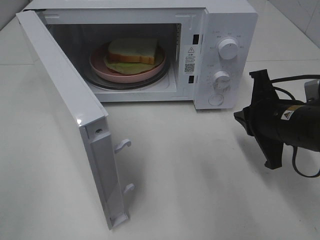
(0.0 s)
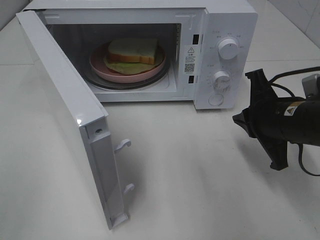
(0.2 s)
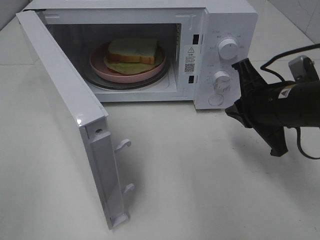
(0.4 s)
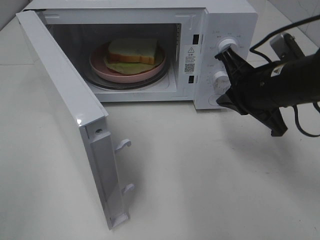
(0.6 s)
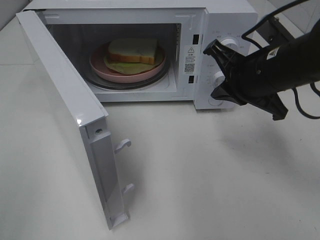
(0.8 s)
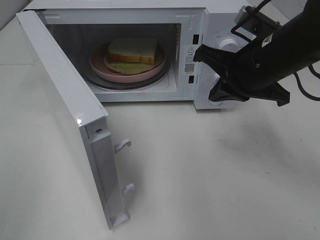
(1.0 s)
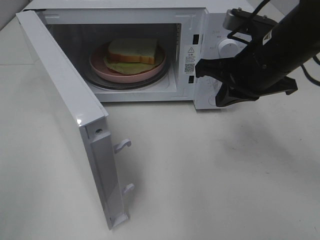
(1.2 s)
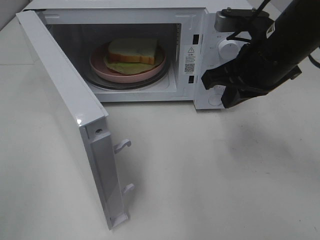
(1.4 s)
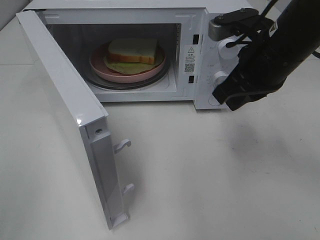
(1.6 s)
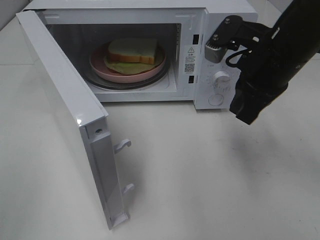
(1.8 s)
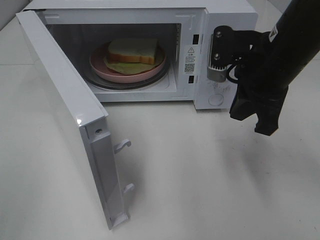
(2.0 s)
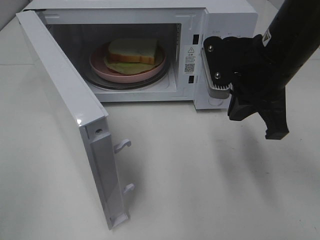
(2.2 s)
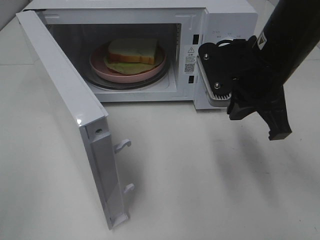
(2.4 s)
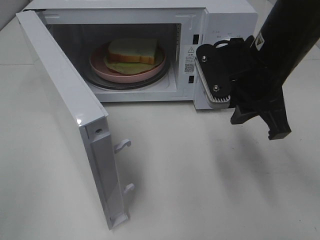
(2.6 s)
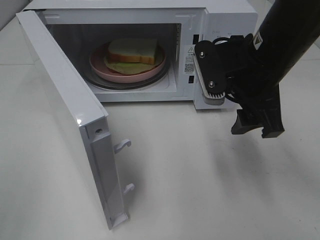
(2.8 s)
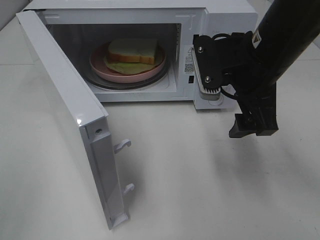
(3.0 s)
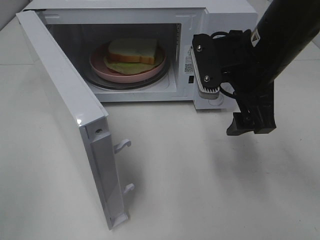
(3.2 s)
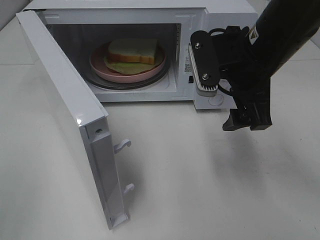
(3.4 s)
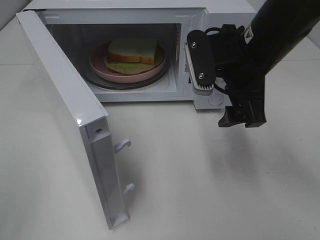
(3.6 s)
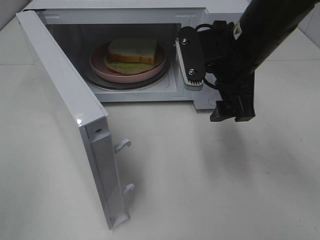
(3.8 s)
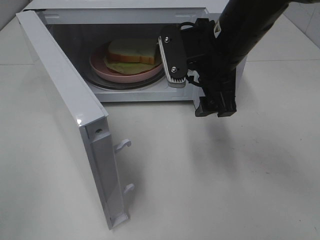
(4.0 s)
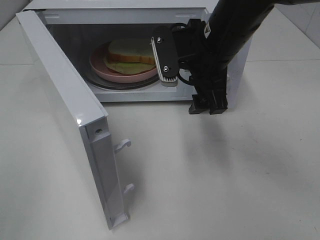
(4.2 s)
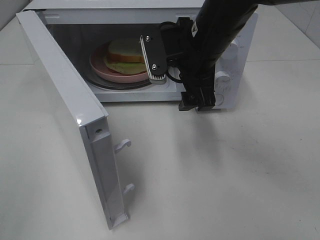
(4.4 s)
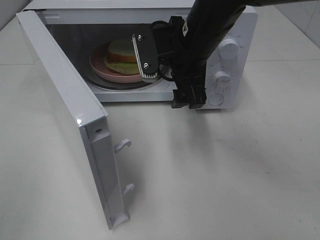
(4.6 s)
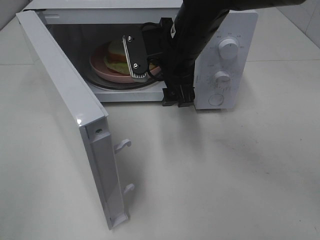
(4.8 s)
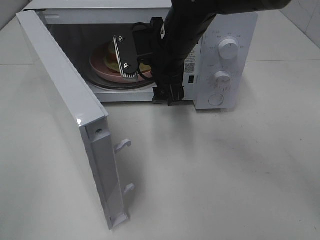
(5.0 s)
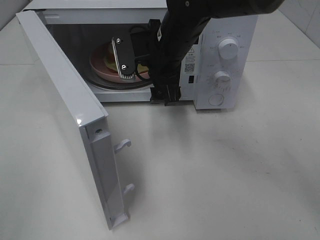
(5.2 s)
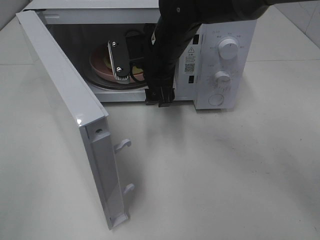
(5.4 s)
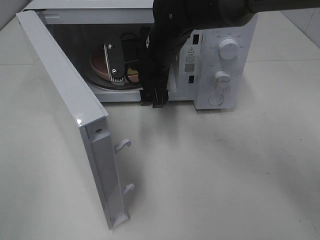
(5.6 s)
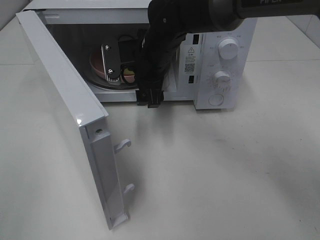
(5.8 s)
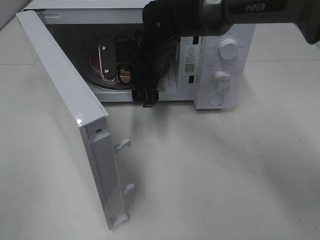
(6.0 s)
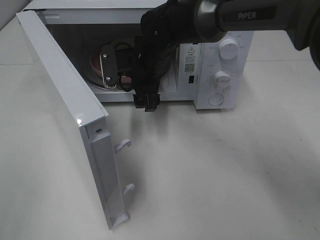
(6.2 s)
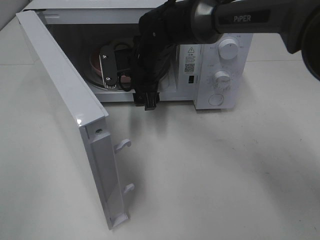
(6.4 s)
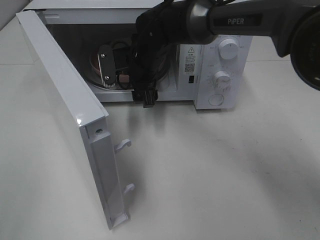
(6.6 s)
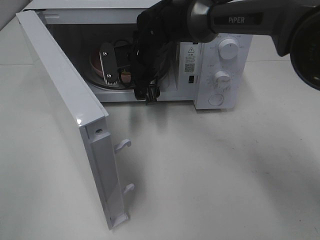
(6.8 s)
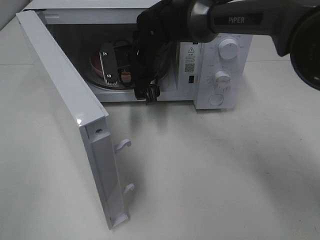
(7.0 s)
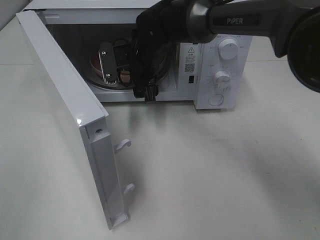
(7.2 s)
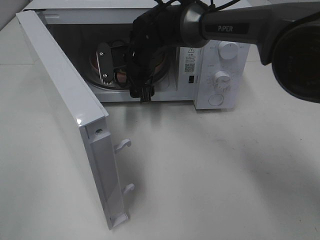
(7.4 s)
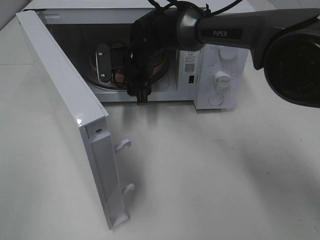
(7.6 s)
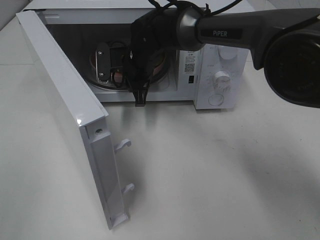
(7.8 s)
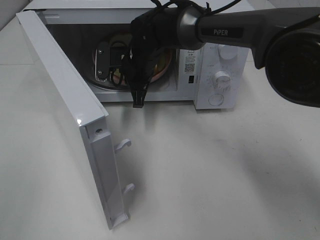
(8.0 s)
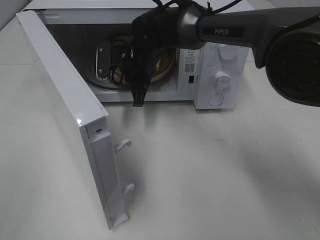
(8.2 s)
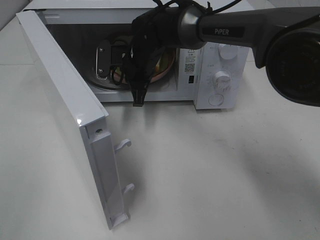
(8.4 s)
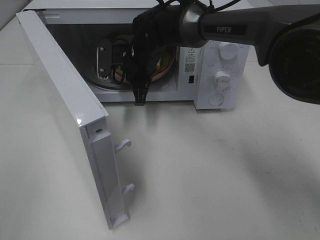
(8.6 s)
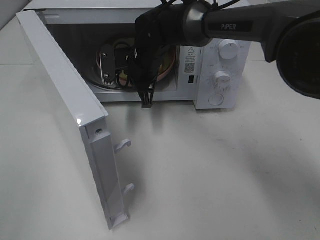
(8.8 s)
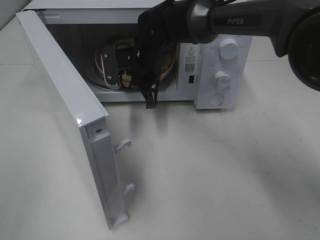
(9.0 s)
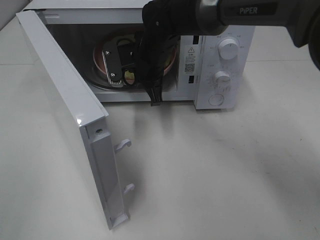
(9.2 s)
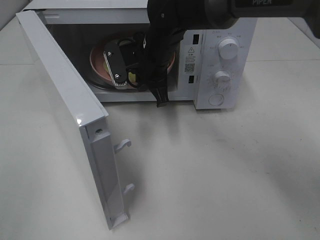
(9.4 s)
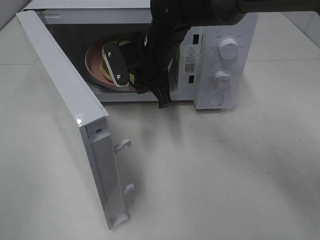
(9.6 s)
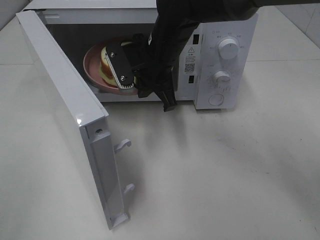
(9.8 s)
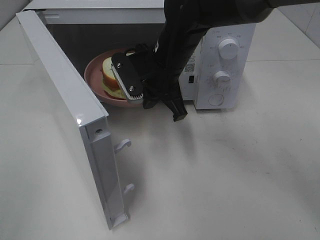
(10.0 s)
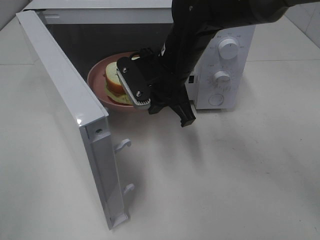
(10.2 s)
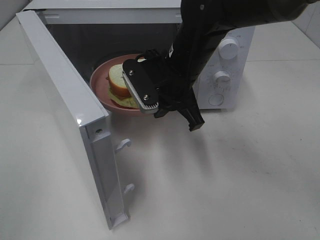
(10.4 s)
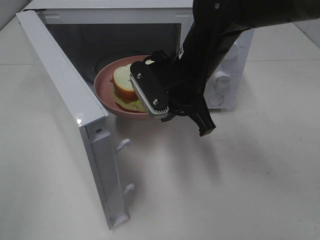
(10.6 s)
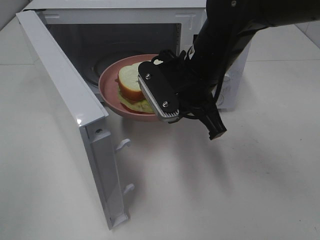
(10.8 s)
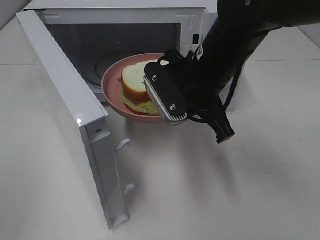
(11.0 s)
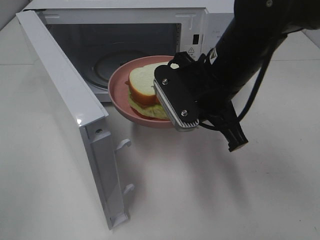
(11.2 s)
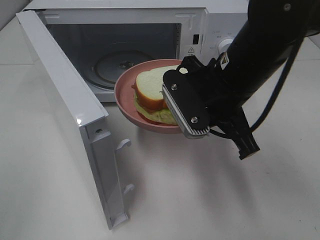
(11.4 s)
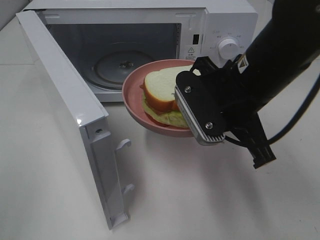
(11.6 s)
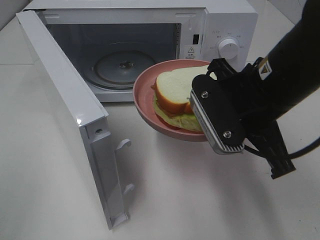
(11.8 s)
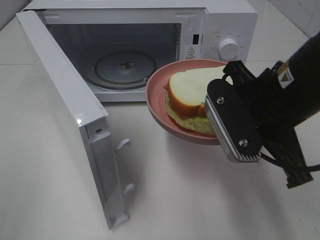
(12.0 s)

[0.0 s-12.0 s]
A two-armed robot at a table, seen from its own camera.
Task of the whole recording: Heat Sandwich.
Step, 0.0 to 8.2 s: Right hand: grab the plate with the sandwich.
0.0 to 1.6 s: The right gripper shifts some 10 cm upward.
1.6 to 3.0 s: The right gripper opens.
3.0 to 4.4 s: The right gripper shifts some 10 cm to the left and forward.
4.4 to 6.0 s: The right gripper travels forward, to the left and downward by about 10 cm.
6.0 to 7.6 s: There are only small adjustments of the grippers.
7.6 to 9.0 s: The right gripper closes.
9.0 to 10.4 s: The right gripper moves backward and to the right, some 10 cm.
10.4 to 12.0 s: The right gripper moves backward and to the right, approximately 15 cm.

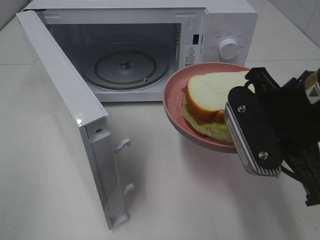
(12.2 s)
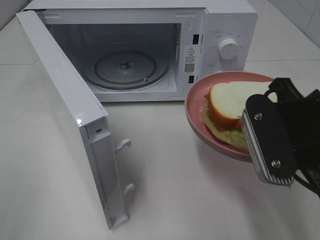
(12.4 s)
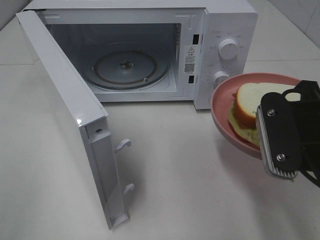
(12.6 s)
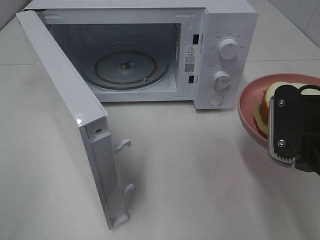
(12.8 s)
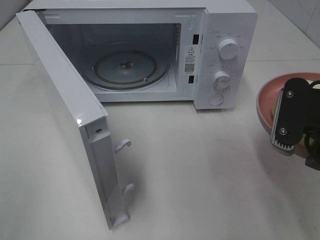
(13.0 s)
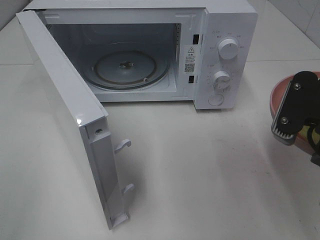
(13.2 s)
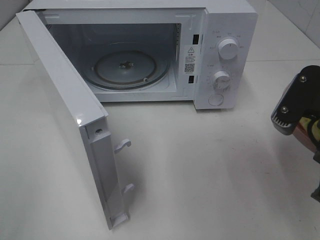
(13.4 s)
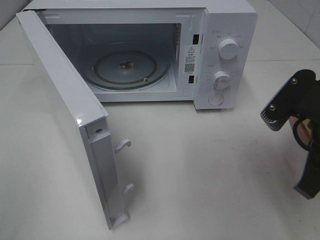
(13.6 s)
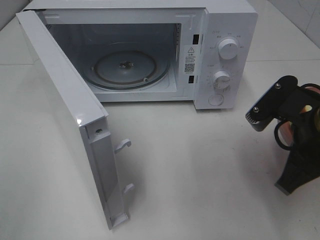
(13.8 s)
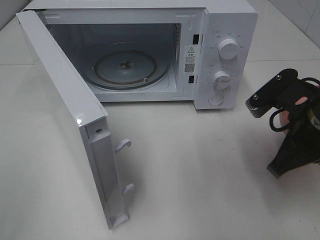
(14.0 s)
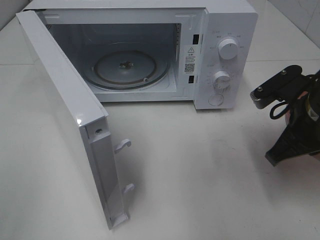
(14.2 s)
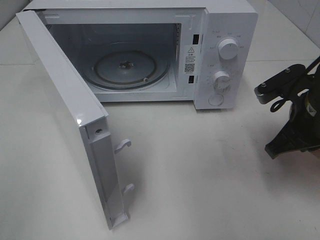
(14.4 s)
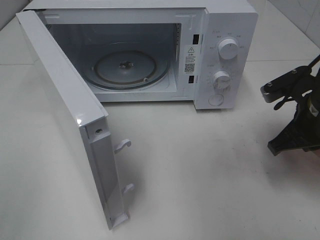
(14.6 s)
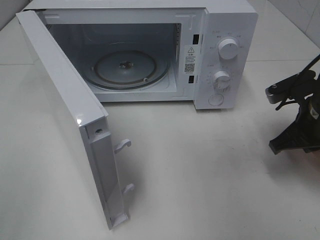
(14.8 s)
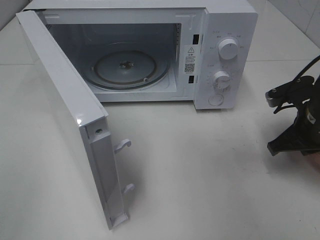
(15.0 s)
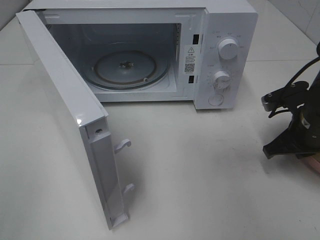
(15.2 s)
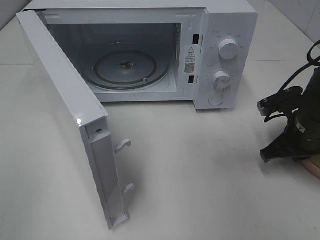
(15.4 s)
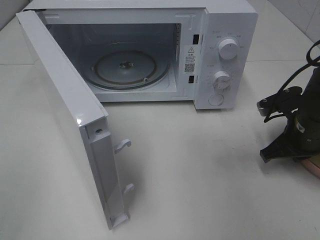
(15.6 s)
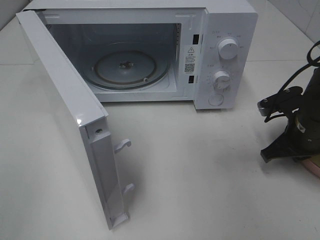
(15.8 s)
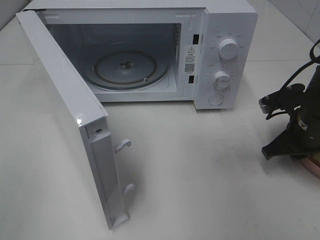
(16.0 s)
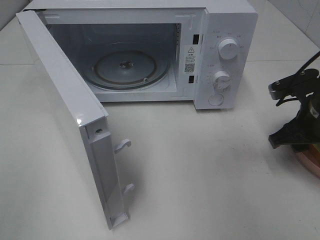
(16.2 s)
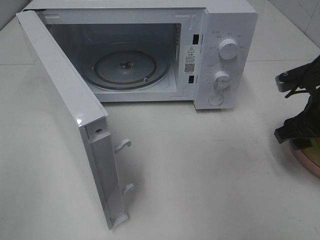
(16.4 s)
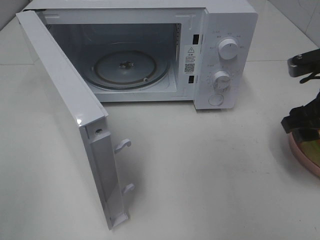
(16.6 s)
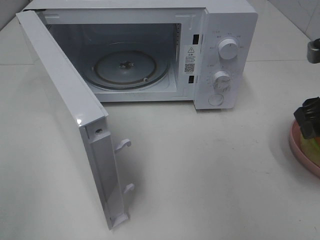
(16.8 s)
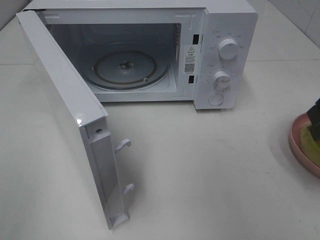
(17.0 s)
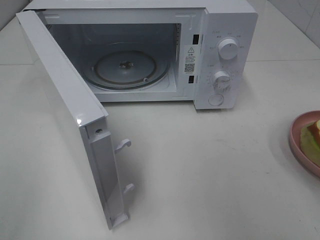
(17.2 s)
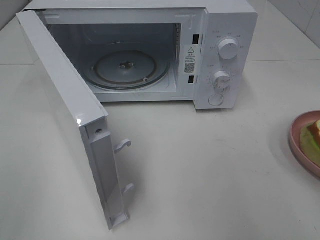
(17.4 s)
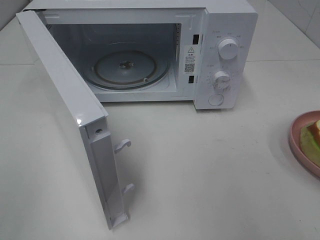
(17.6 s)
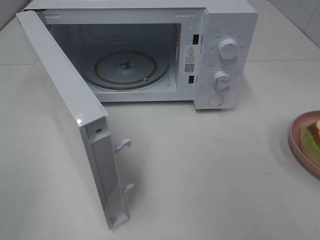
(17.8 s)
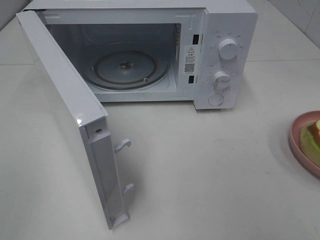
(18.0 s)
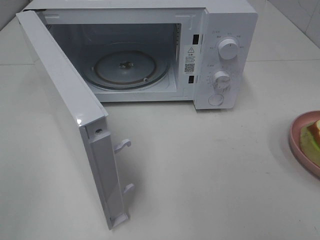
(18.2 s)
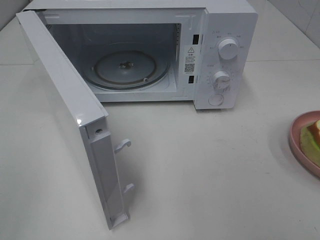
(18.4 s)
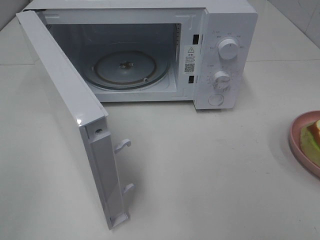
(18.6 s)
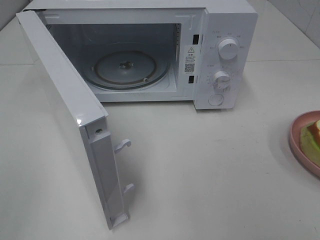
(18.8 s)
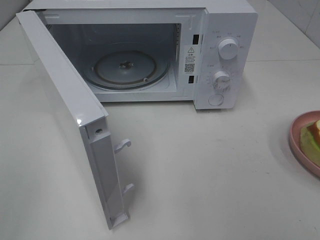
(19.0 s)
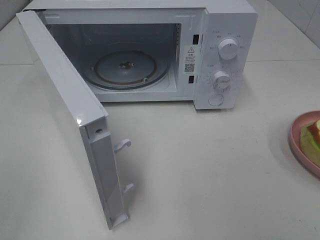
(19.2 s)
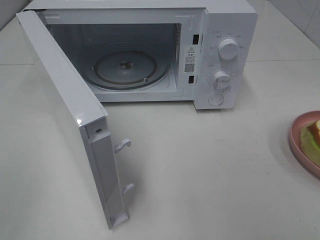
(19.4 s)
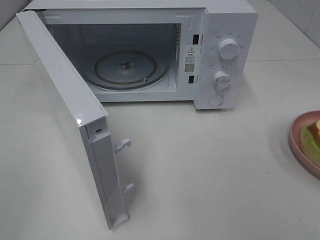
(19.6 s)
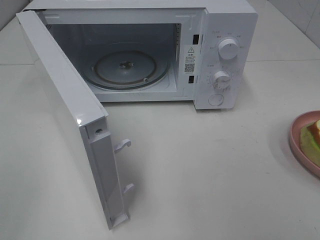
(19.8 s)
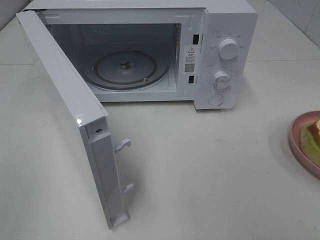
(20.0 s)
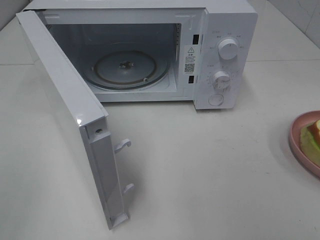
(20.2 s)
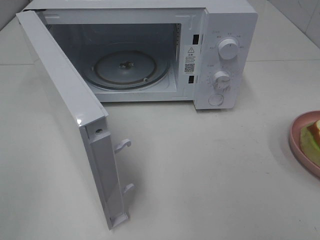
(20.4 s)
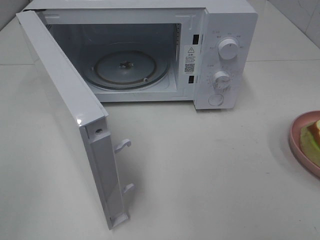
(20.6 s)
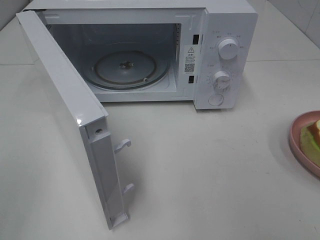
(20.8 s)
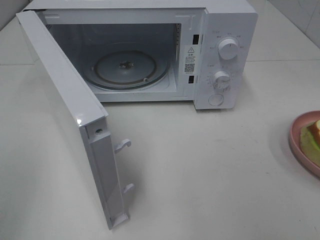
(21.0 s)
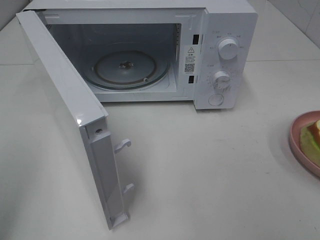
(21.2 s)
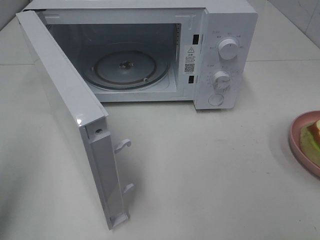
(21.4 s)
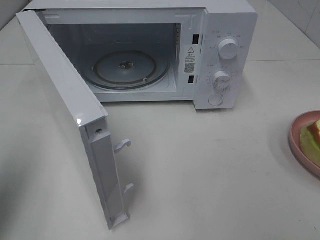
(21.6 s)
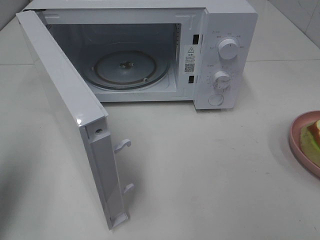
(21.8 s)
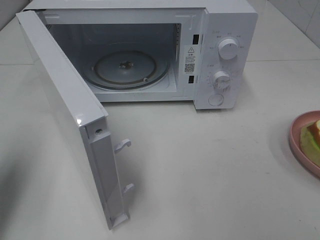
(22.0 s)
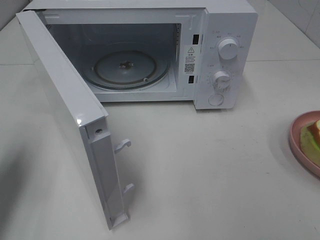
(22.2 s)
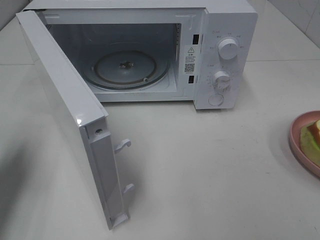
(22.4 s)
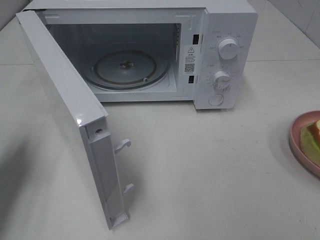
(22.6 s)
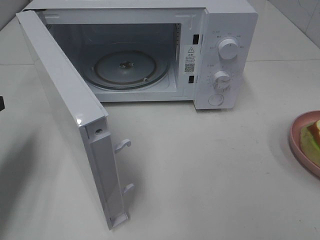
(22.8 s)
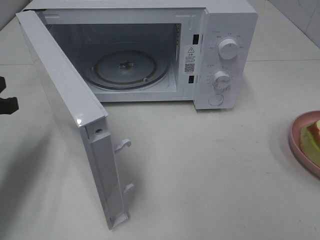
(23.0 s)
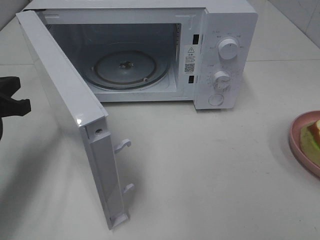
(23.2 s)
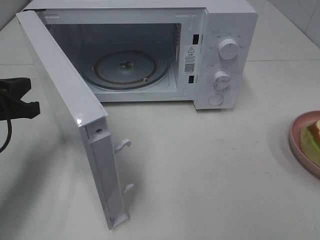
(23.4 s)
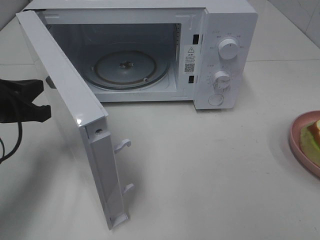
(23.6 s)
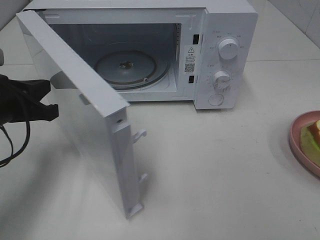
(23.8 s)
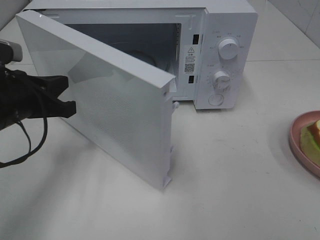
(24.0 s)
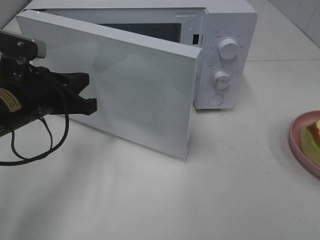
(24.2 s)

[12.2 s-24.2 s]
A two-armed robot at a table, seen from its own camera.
Task of the whole recording: Heat Sandwich.
Step, 12.2 to 16.2 s: Right hand: place the plate on the table.
12.2 to 13.8 s: The right gripper ends up some 5 cm from where it was.
13.8 to 15.2 s: The right gripper goes approximately 15 cm forward, downward and to the right.
15.2 to 16.6 s: The right gripper shifts roughly 10 cm upward, and opens its fingers.
16.6 to 18.2 s: The right gripper is displaced backward by some 20 cm.
21.2 to 22.6 s: The left gripper shifts roughly 20 cm forward and downward, and closes its fingers.
22.6 to 24.2 s: The left gripper is displaced to the right by roughly 15 cm.
